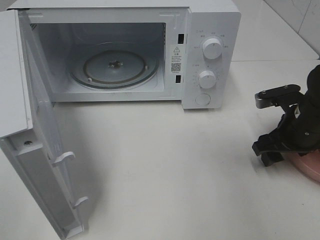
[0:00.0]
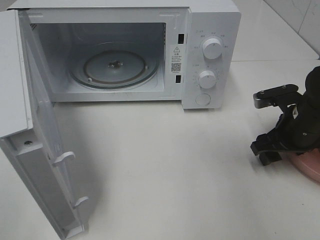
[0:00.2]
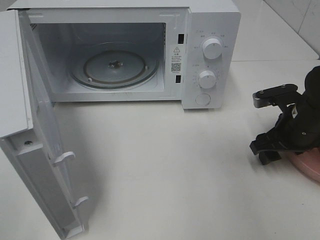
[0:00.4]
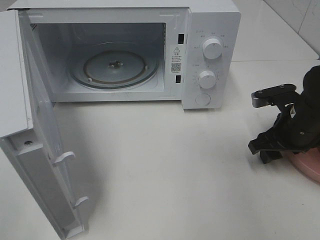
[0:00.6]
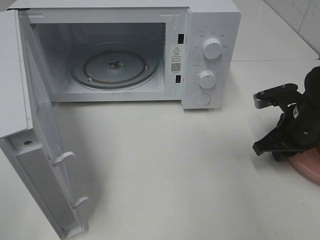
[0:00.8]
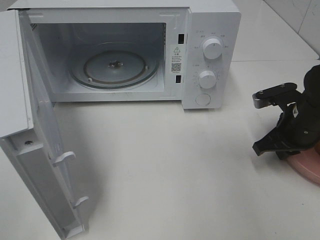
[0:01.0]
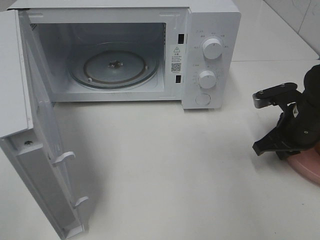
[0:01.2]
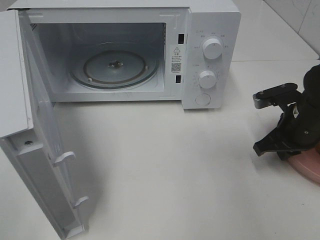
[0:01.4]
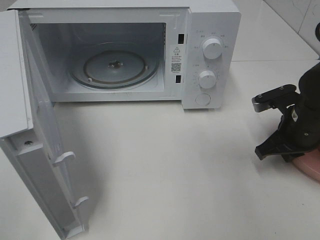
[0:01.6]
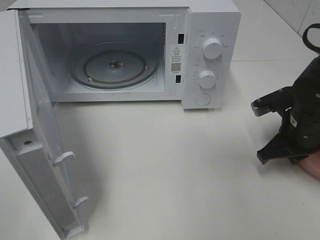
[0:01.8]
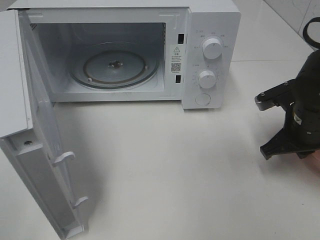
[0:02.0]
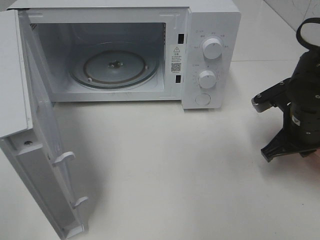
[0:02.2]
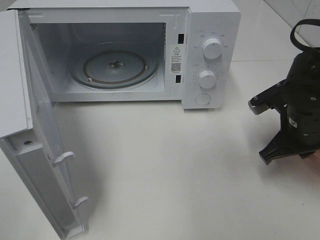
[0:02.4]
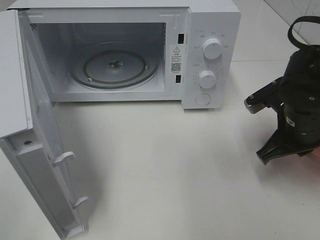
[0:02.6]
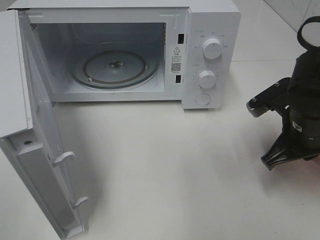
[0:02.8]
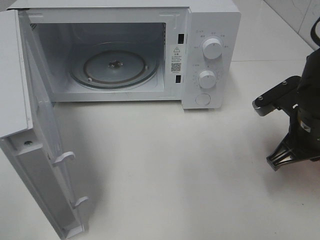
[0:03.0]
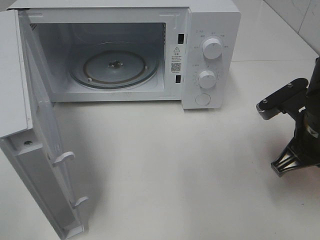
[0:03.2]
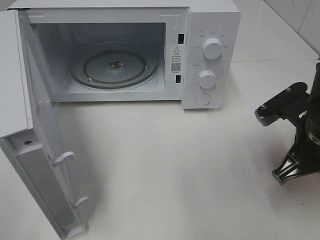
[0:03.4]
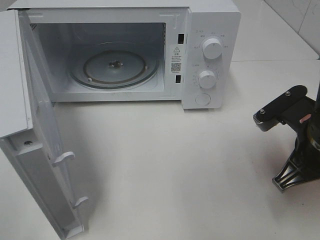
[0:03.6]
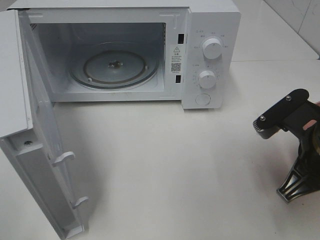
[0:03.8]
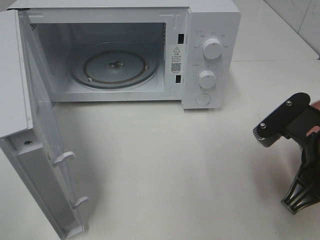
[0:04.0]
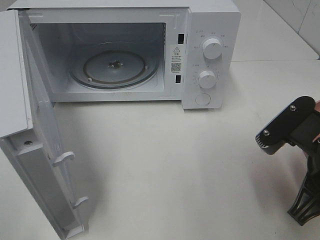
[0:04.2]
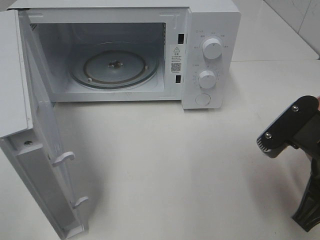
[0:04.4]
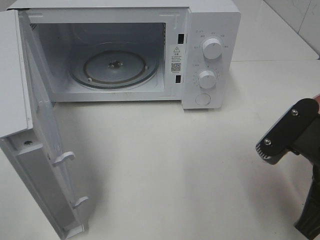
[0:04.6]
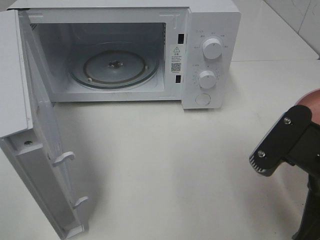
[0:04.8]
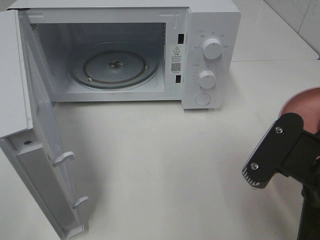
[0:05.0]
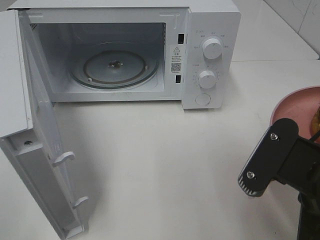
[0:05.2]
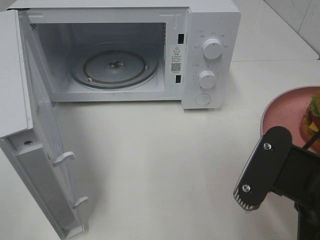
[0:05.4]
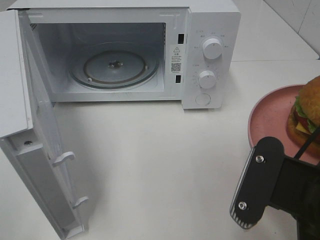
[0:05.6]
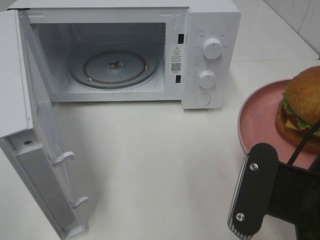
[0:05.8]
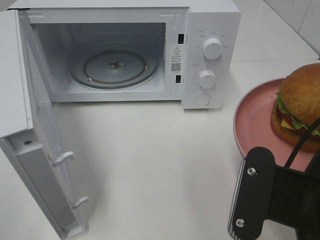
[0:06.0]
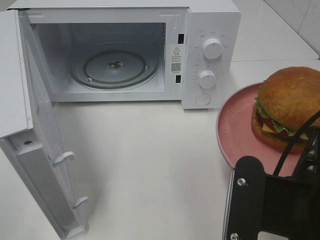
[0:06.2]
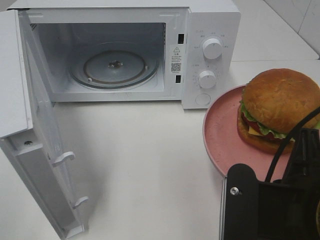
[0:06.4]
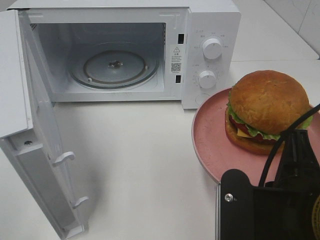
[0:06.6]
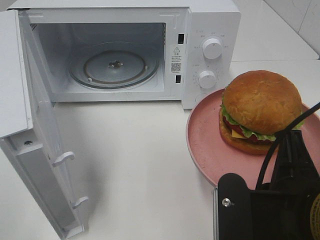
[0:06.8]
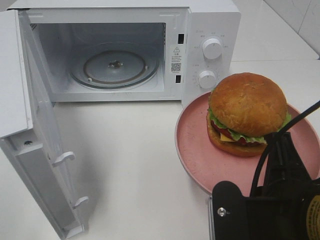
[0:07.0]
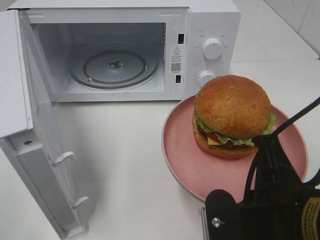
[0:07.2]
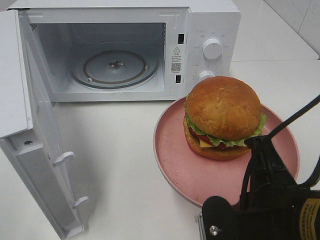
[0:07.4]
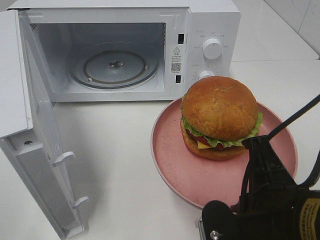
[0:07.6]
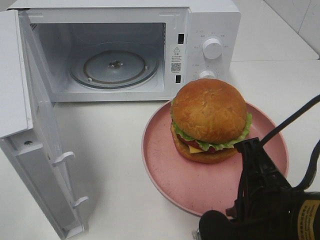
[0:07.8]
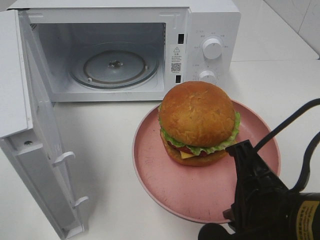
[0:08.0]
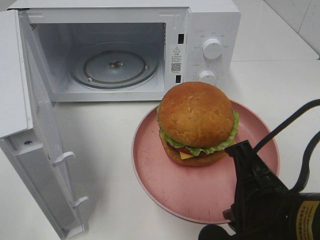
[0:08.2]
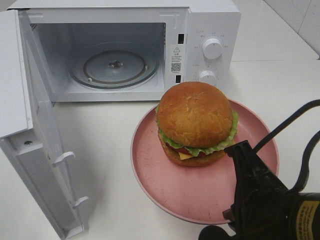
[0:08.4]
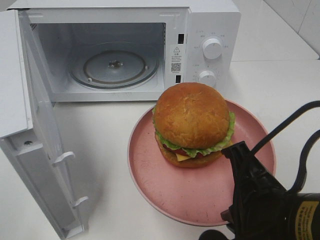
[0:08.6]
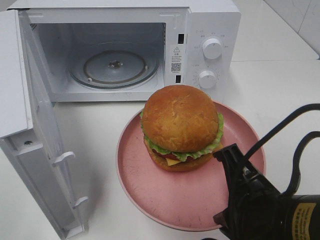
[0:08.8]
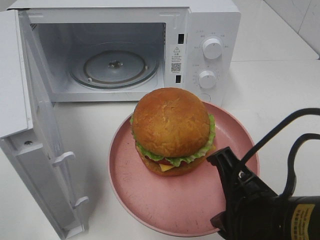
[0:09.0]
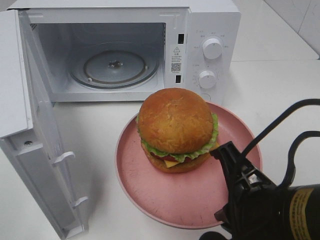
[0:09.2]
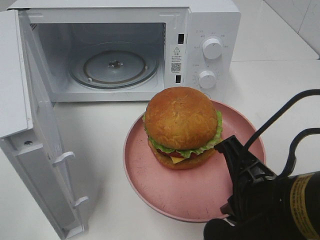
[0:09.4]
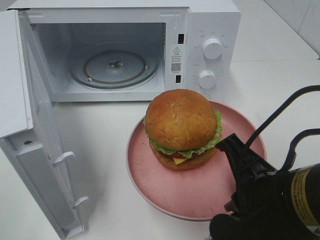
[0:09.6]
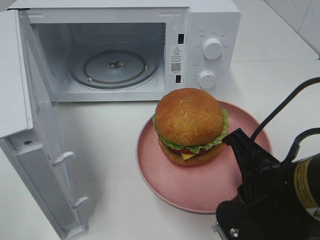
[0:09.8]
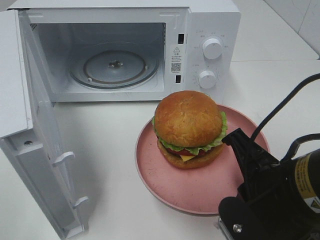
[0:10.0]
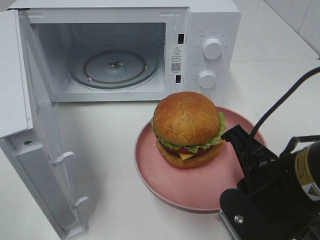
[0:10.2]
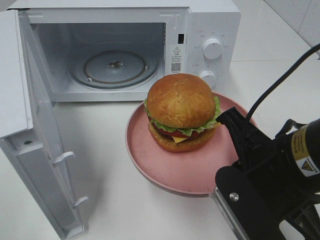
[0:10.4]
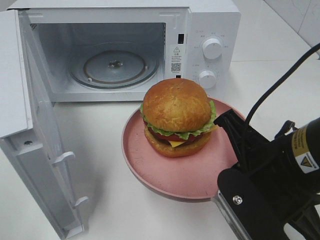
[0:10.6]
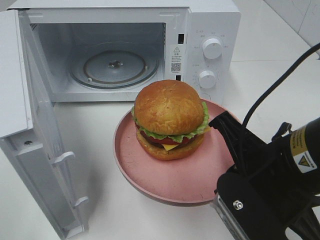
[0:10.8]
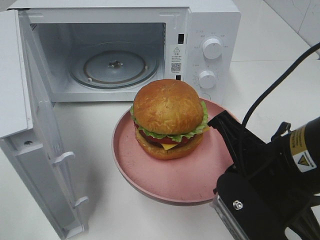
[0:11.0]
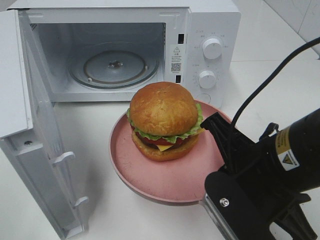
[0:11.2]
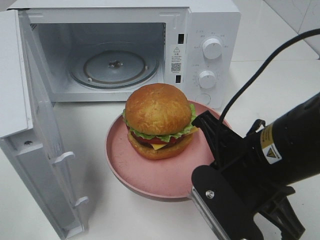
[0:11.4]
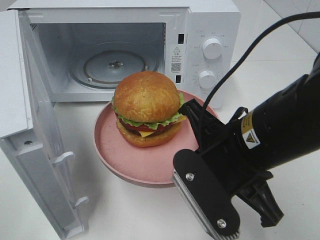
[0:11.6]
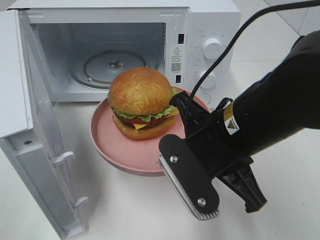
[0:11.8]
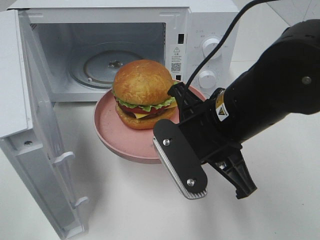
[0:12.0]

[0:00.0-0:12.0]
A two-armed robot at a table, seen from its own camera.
Task of the whole recording: Heat the burger.
0:00.0 to 0:01.6: The right gripper closes.
0:01.6 to 0:03.0: The right gripper heads backward, covering some 5 cm.
0:03.0 to 0:04.4: The right gripper travels backward by some 10 cm.
0:04.4 to 0:06.0: The right gripper heads backward, covering some 5 cm.
0:09.0 to 0:10.4: The right gripper travels forward by about 5 cm.
0:10.4 to 0:12.0: The right gripper heads forward and to the left, covering about 10 cm.

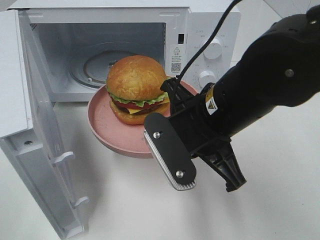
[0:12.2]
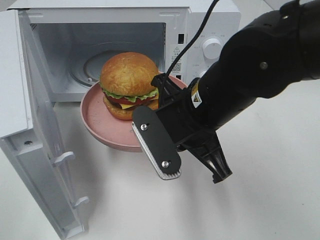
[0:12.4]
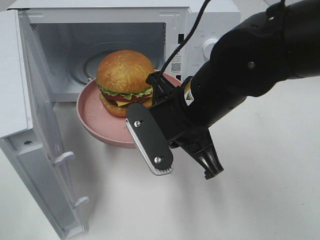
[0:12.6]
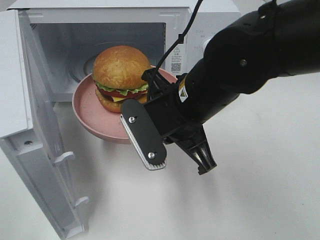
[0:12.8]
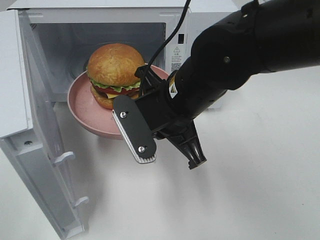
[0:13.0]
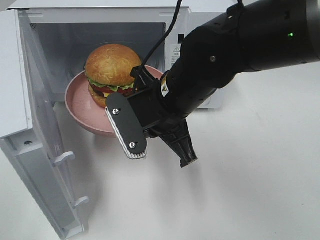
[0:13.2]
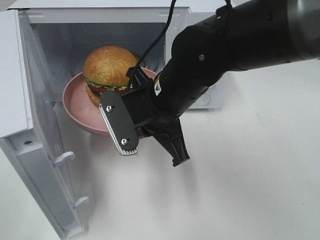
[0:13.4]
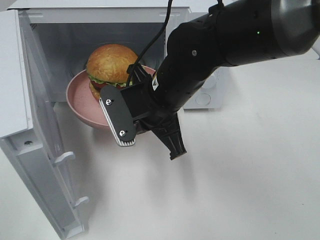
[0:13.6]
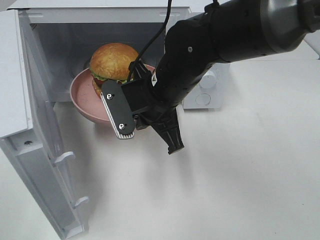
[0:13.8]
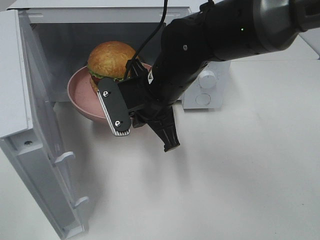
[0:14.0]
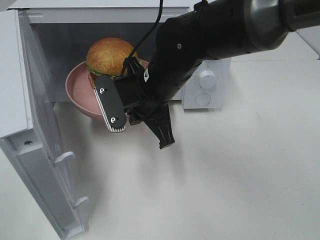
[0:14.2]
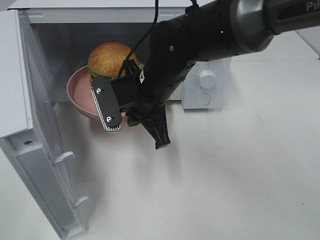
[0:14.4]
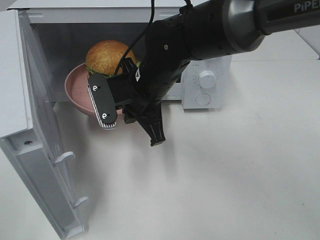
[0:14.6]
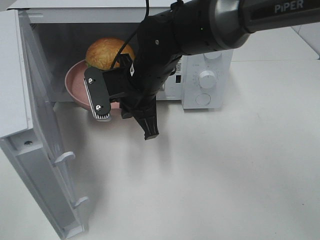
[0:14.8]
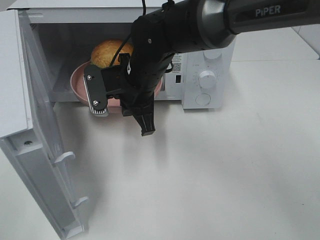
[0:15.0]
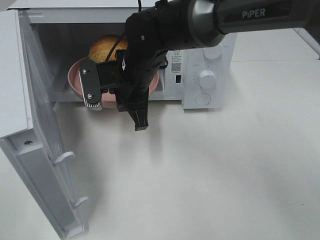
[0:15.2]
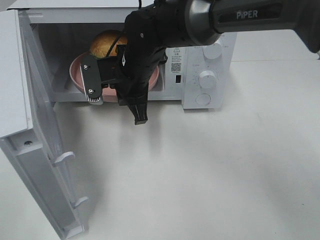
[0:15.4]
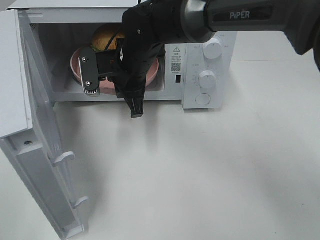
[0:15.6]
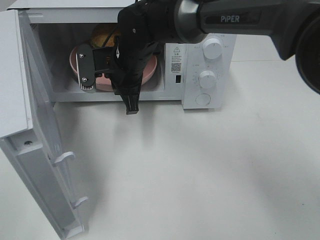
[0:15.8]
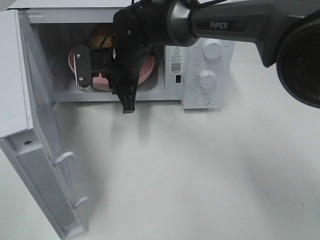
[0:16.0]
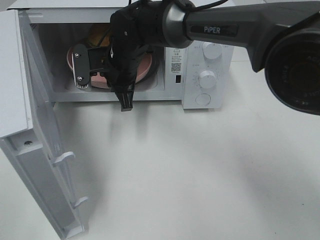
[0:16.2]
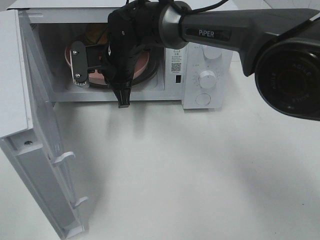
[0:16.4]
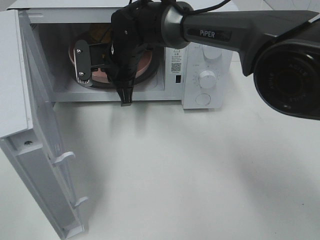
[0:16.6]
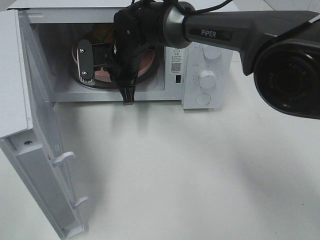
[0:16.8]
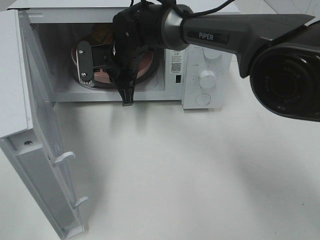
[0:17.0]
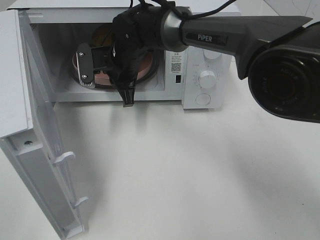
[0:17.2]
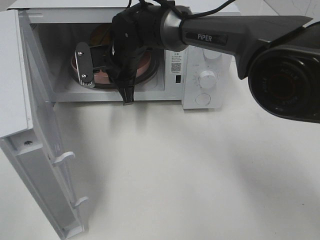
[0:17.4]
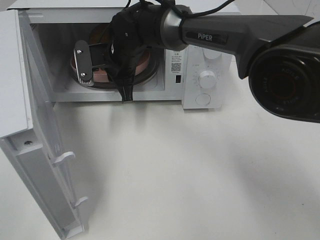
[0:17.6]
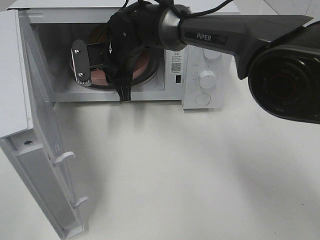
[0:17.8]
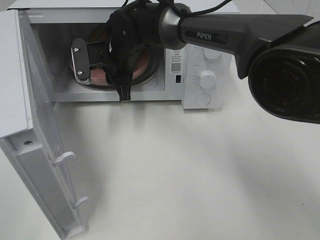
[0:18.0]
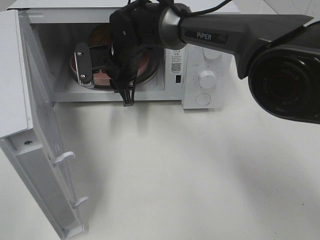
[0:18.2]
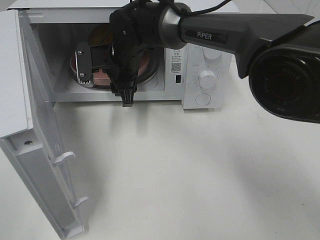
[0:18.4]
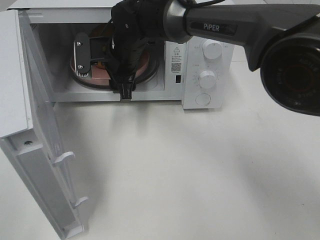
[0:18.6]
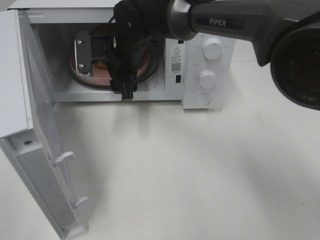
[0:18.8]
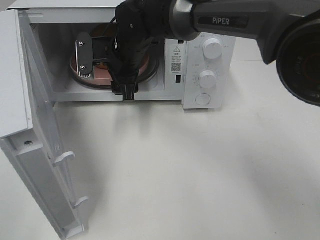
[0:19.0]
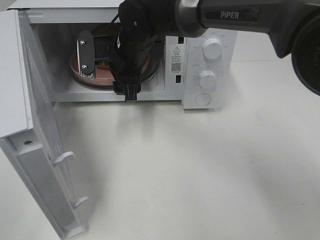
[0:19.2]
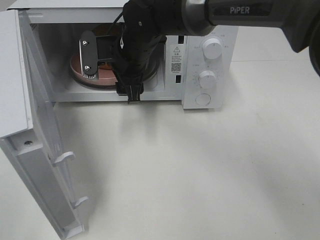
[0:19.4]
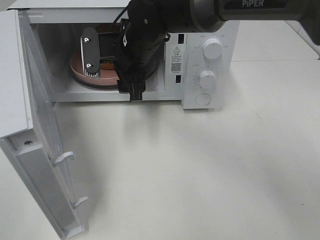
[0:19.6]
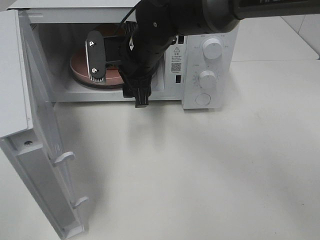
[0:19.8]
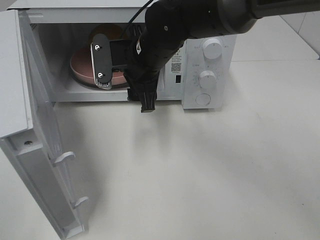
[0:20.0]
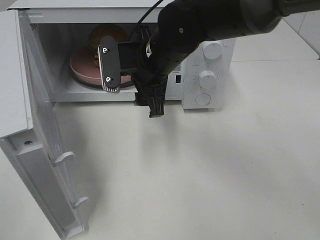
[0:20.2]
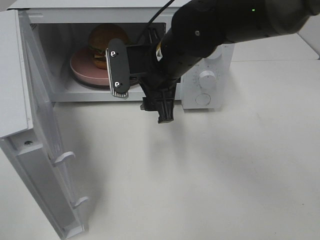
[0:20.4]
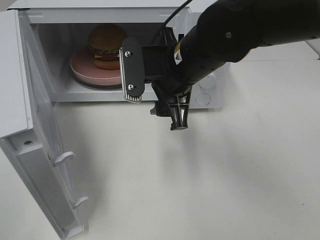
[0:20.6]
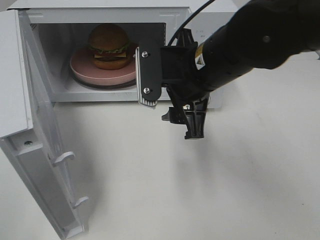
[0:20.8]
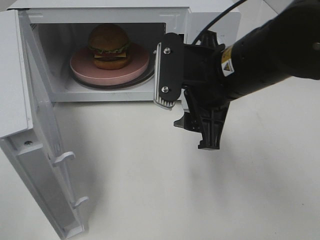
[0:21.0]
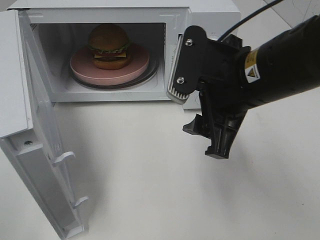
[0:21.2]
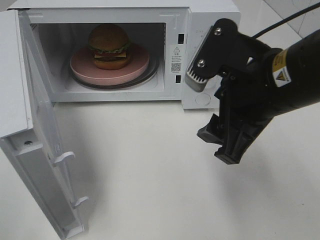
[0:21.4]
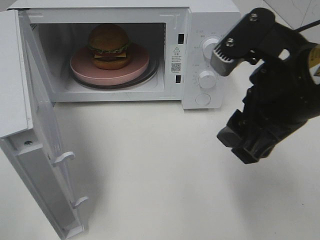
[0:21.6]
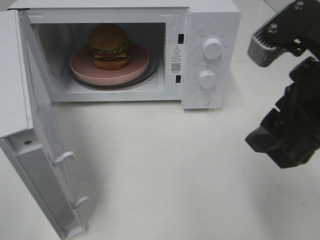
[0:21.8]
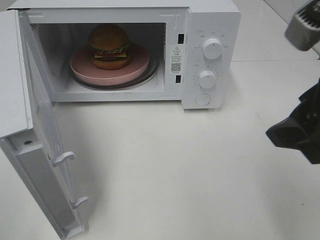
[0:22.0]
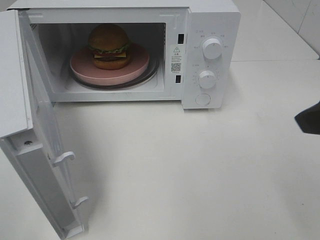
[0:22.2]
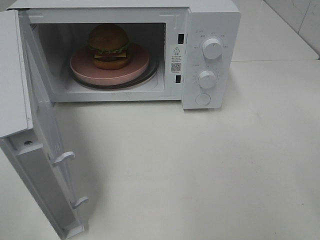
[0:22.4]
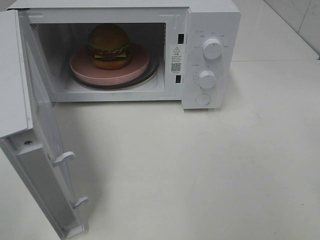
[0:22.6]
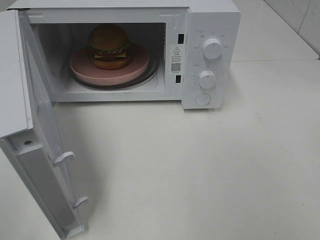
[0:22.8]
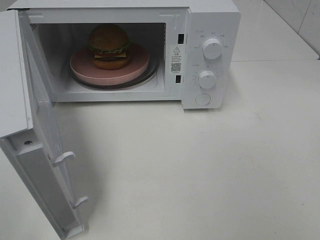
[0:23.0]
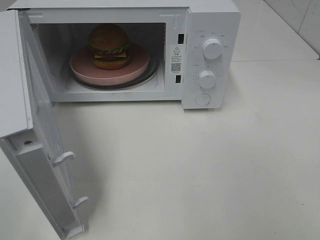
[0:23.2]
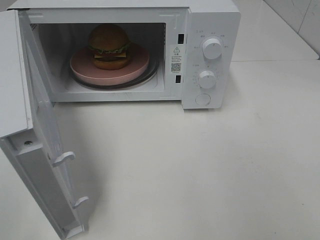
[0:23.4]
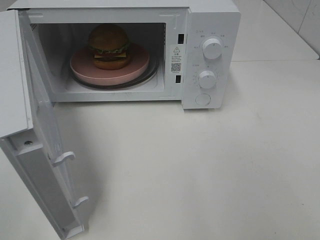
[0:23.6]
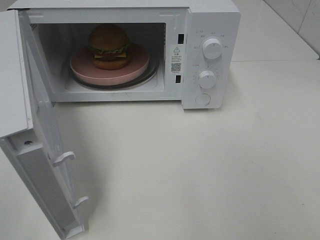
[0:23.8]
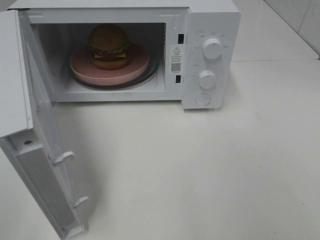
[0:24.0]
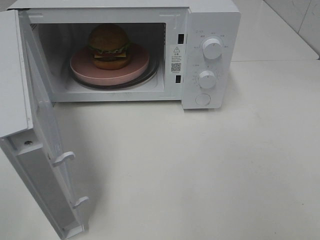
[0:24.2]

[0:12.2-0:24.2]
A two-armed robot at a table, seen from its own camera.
Task of the whole recording: Heat the burger.
Step, 0:12.2 to 0:17.8: Right hand: place the plate in the microwave.
0:12.2 to 0:13.8: The right gripper moves forward and to the left, roughly 10 cm.
0:13.8 to 0:15.2: The right gripper heads forward, covering approximately 5 cm.
0:15.2 to 0:16.6: The right gripper is displaced forward by about 5 cm.
0:16.6 to 0:18.2: The right gripper opens.
0:18.2 to 0:19.8: The right gripper shifts by about 5 cm, and opens.
0:19.8 to 0:21.2: The right gripper goes roughly 20 cm backward and to the right.
0:21.2 to 0:22.6: The right gripper goes roughly 20 cm to the right, backward and upward.
